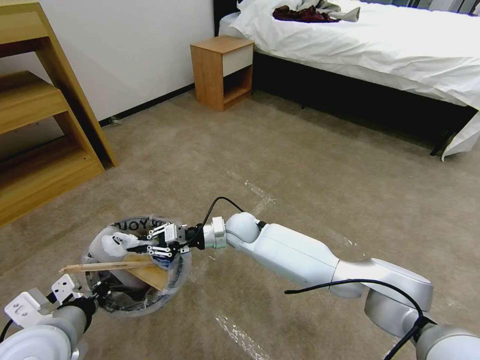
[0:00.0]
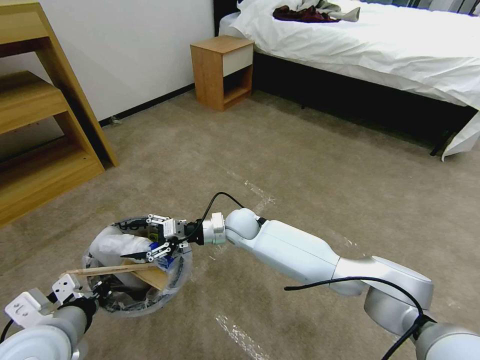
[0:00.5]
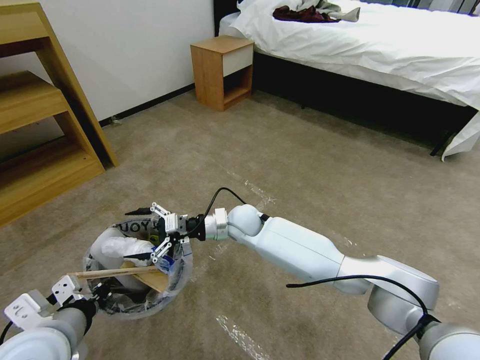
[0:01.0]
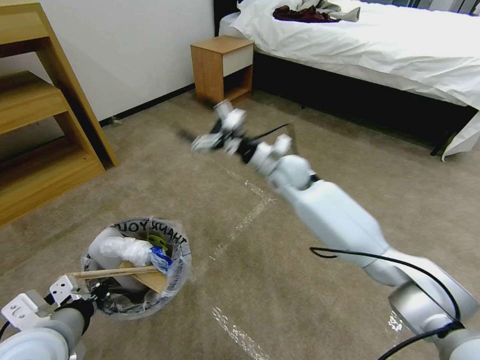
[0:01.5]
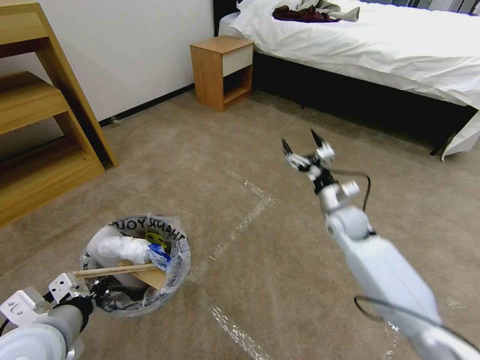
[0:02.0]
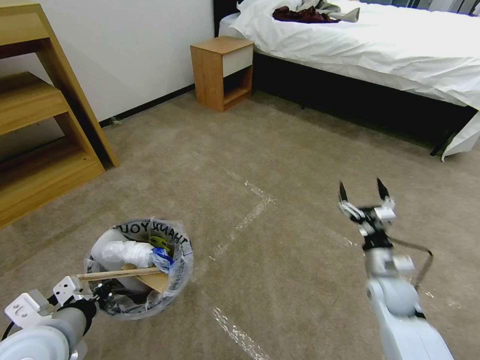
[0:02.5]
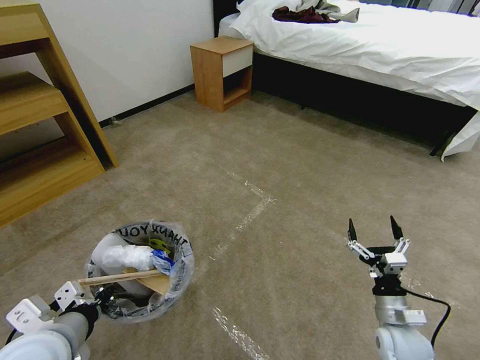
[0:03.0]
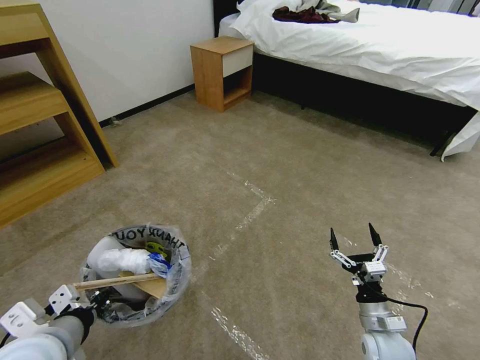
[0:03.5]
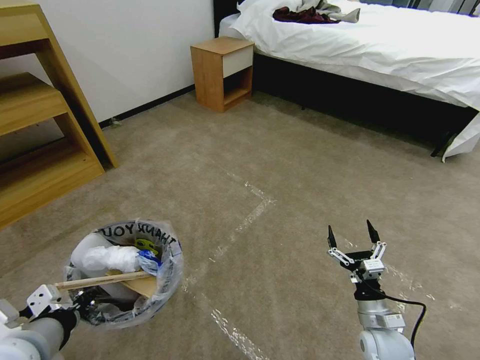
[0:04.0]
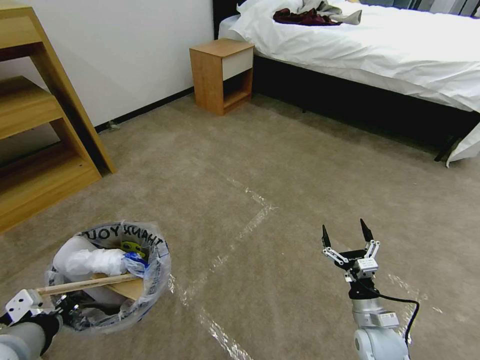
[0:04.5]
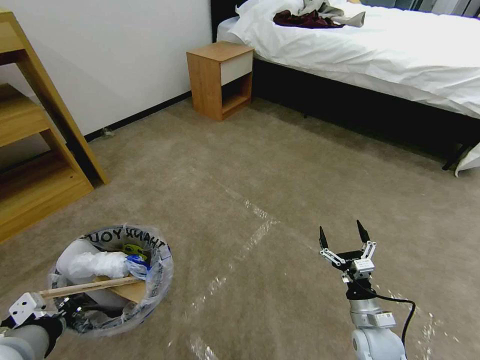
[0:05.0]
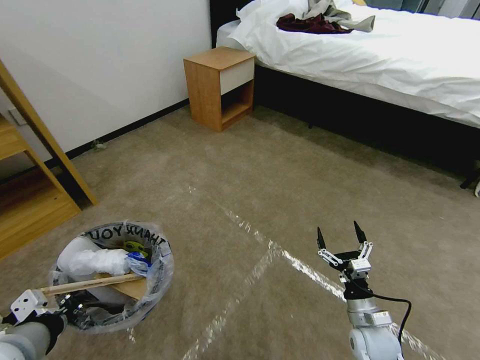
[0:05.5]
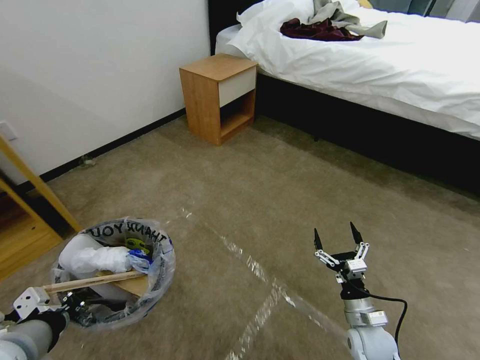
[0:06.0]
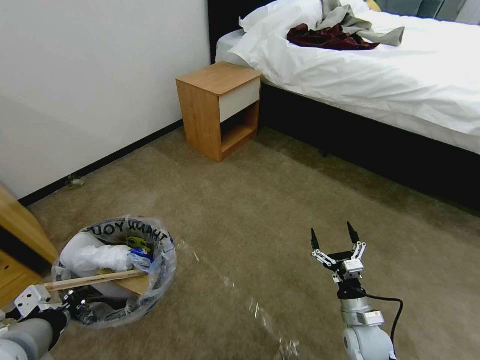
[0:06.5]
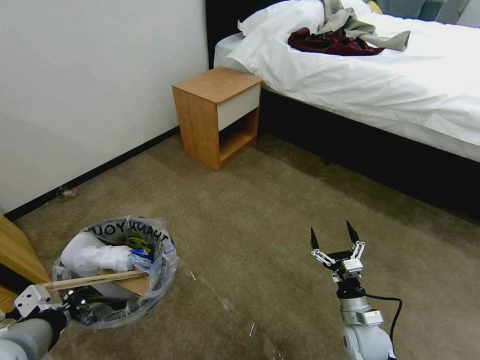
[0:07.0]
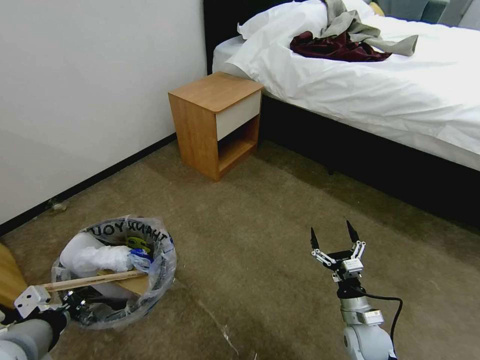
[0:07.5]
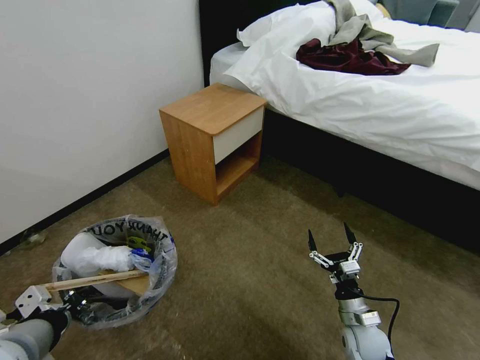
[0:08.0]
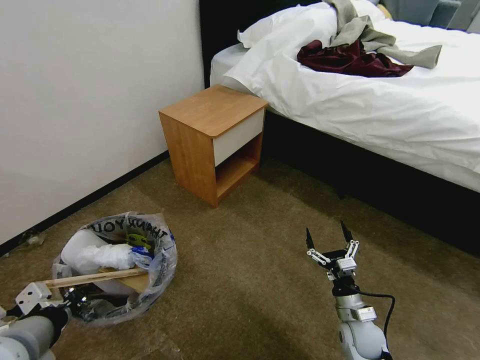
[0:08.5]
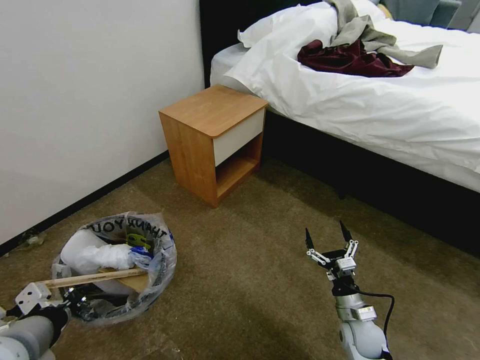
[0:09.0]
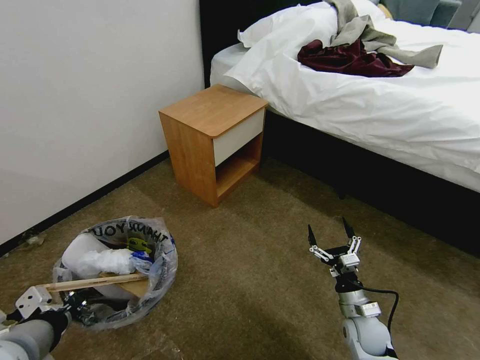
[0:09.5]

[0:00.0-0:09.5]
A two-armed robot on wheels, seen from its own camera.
Task of the whole recording: Pick up the trash bin and place the garbage on the floor into it.
0:00.0 to 0:02.0: The right gripper travels to the right by about 30 cm, and opens up.
0:02.0 to 0:04.0: The right gripper shifts approximately 25 cm backward and downward.
